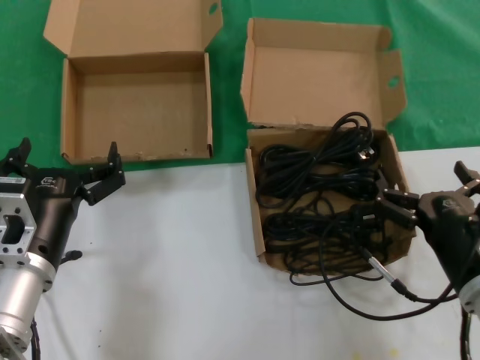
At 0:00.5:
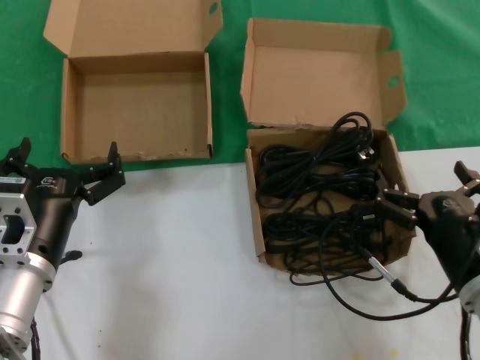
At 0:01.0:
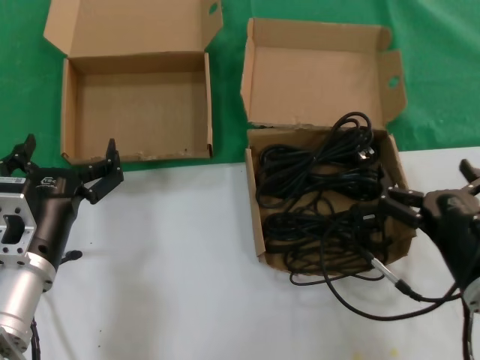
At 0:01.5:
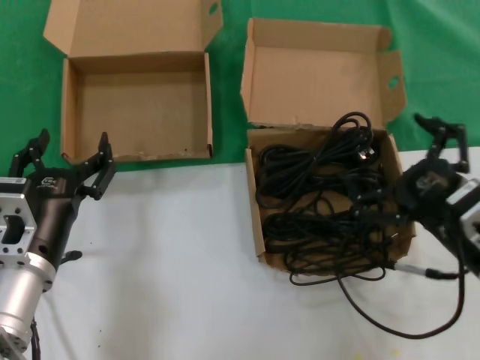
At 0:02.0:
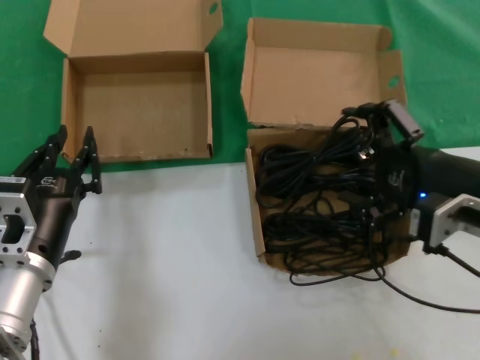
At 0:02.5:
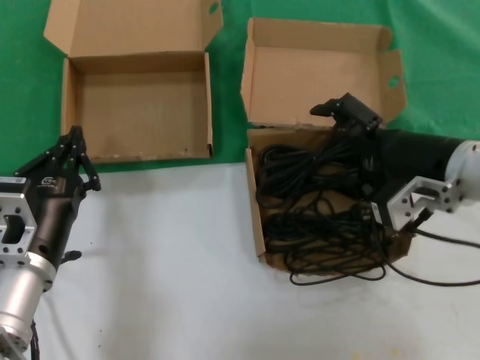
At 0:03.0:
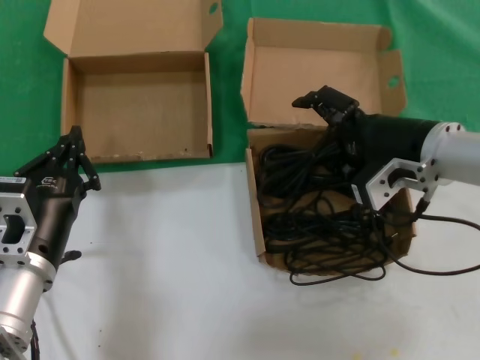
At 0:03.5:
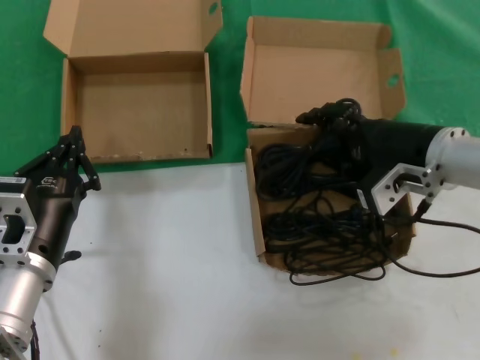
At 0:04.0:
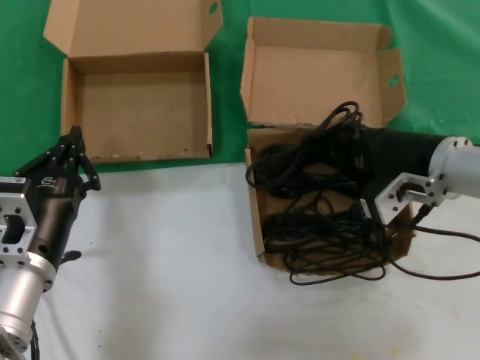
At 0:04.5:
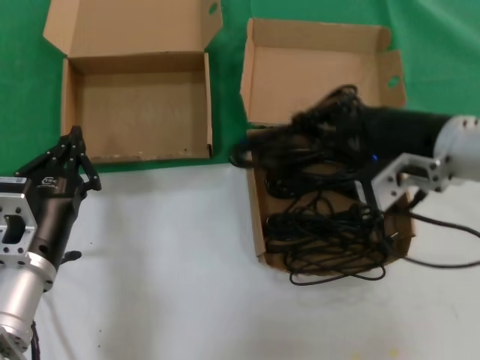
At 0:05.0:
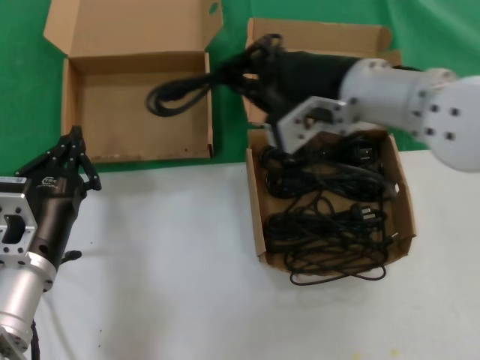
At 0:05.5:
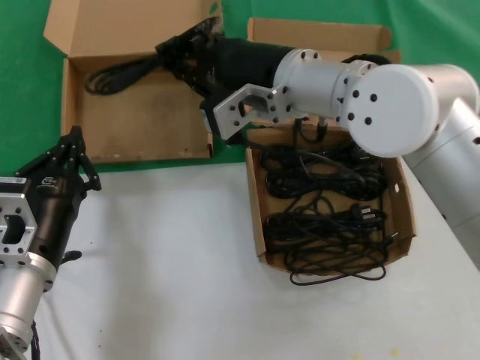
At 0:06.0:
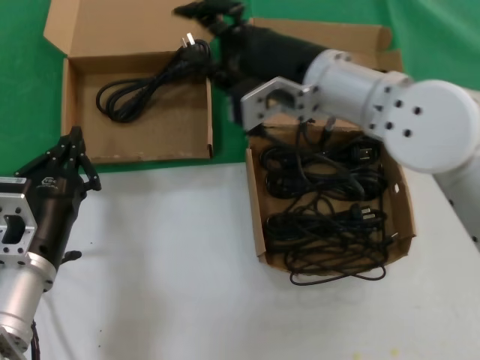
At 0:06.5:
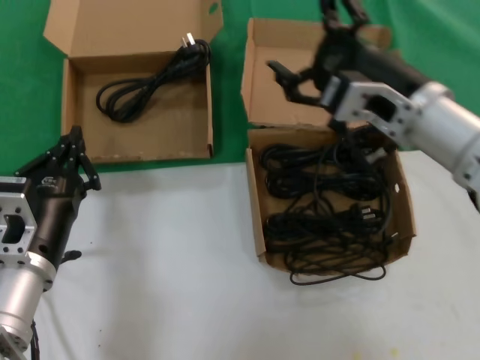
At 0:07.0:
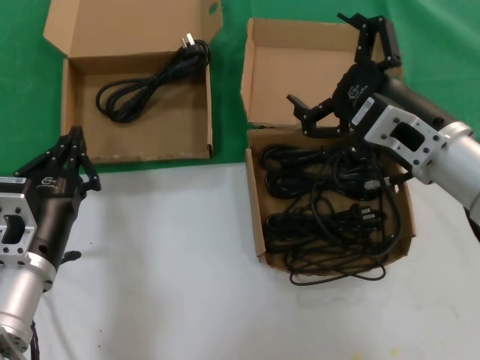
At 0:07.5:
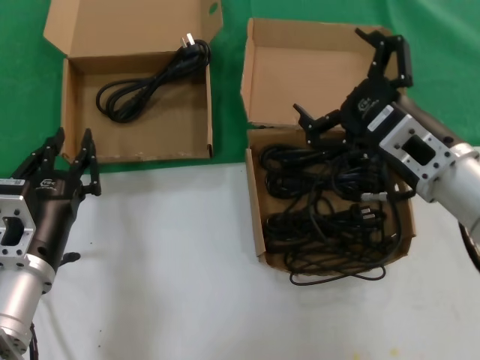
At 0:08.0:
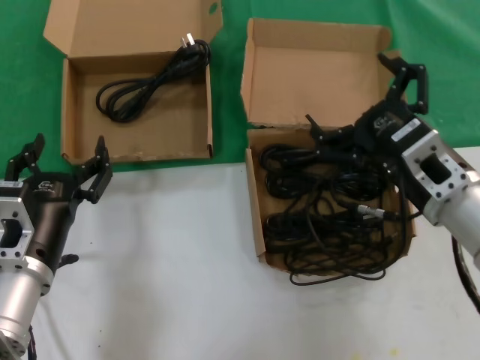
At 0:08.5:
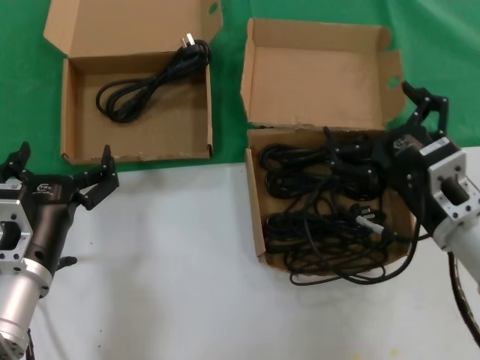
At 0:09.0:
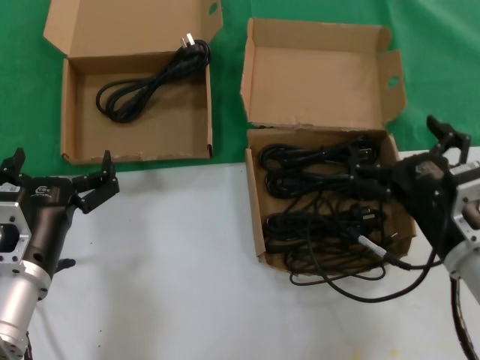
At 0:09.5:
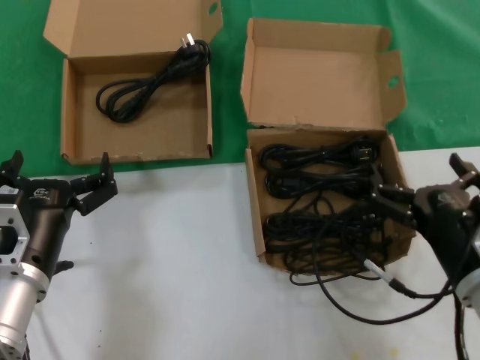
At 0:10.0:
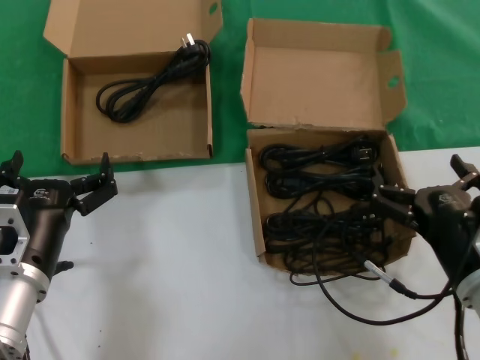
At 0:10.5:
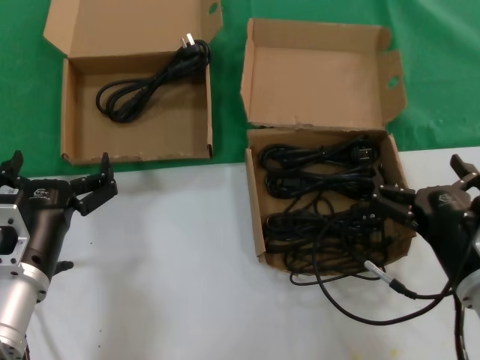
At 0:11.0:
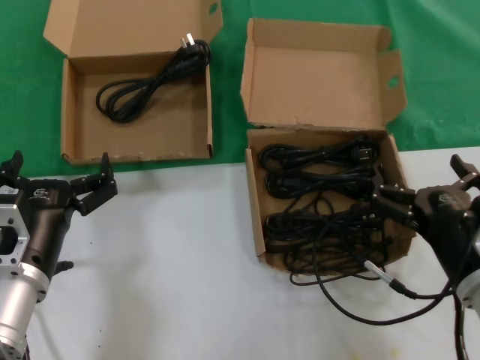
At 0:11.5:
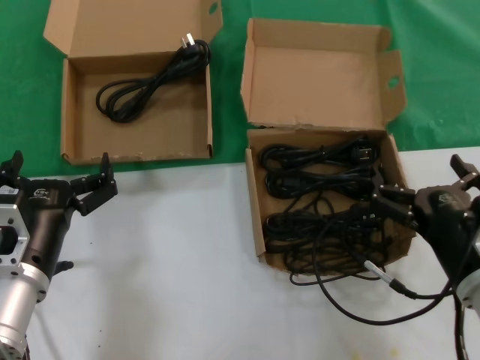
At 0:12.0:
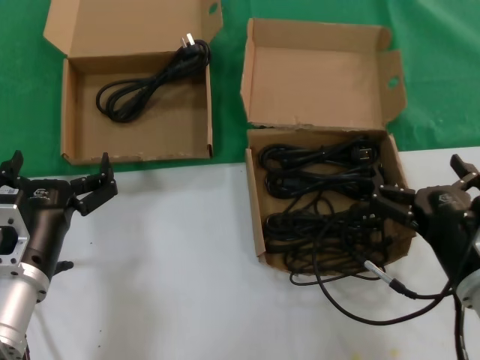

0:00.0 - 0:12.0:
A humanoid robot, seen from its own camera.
Task of the whole recording: take the parts from the box containing them and put them into an empty box.
Step, 0:00.0 - 0:04.0: Grasp the data cable.
Step, 0:04.5 - 0:05.5: Place the data cable in the another box.
0:00.0 - 0:02.0: The right hand heads upward, covering some 15 cm.
0:02.0 - 0:04.0: The right hand heads forward, covering approximately 10 cm.
0:04.0 - 0:06.0: The right hand heads to the left and upward, covering some 15 cm.
0:06.0 - 0:08.0: The right hand heads to the right, downward and backward, covering approximately 20 cm.
0:08.0 - 0:10.0: The right hand is displaced downward and backward by about 10 cm.
0:10.0 - 0:12.0: Both hands stay put.

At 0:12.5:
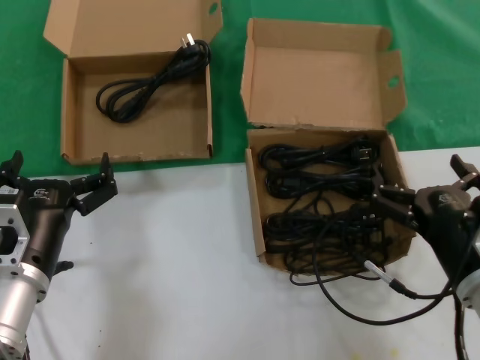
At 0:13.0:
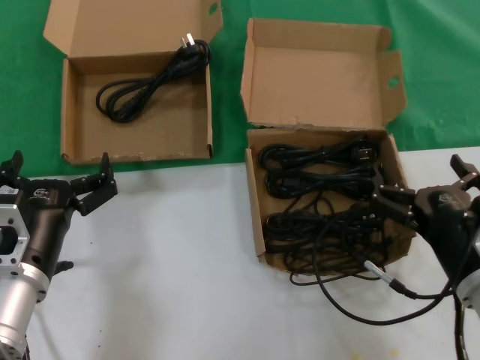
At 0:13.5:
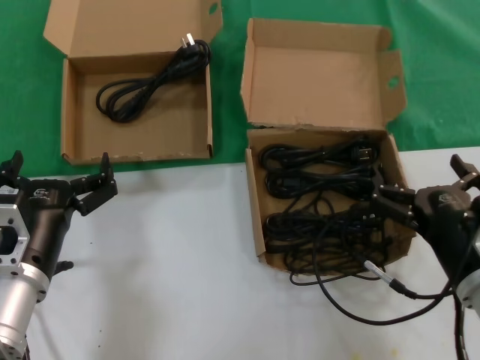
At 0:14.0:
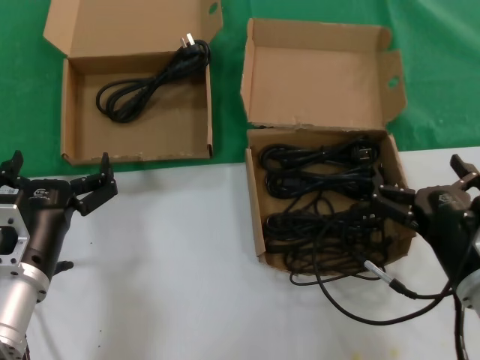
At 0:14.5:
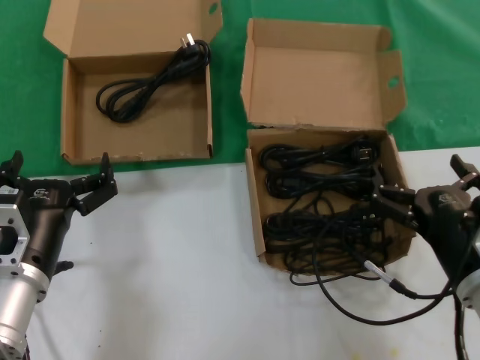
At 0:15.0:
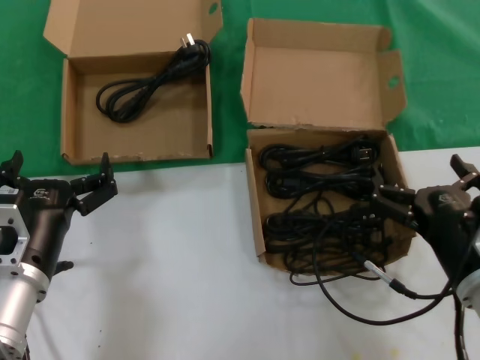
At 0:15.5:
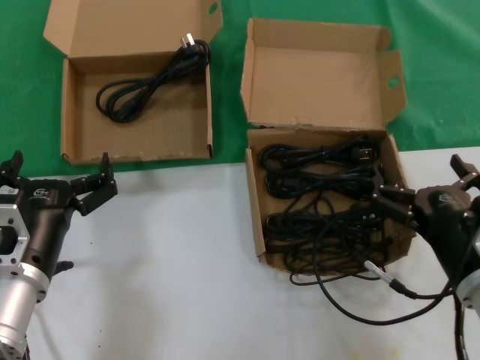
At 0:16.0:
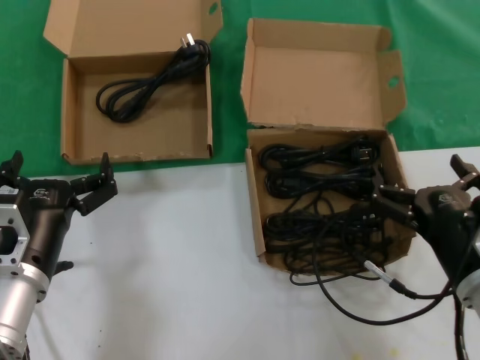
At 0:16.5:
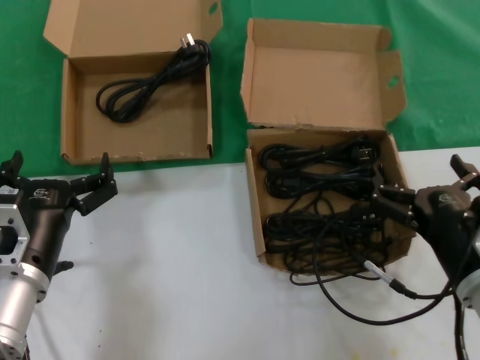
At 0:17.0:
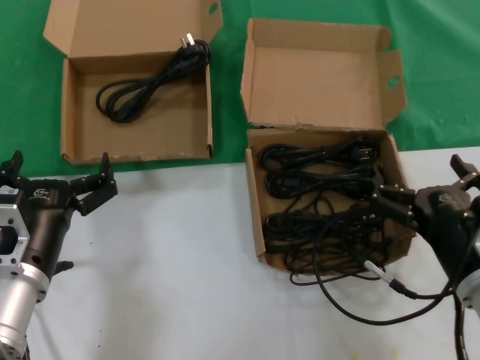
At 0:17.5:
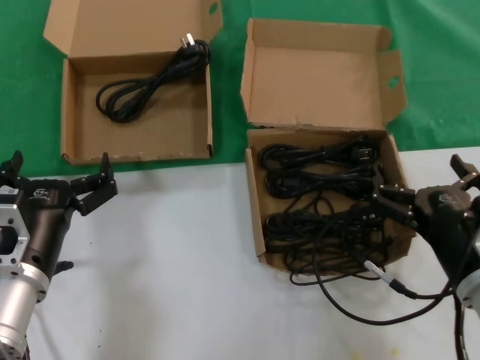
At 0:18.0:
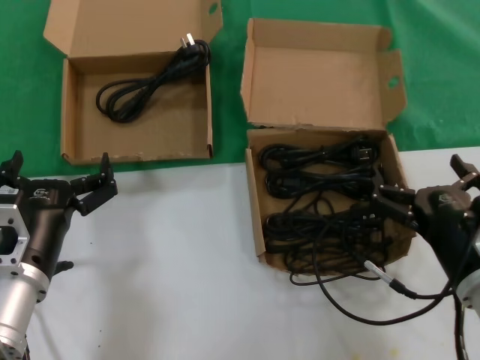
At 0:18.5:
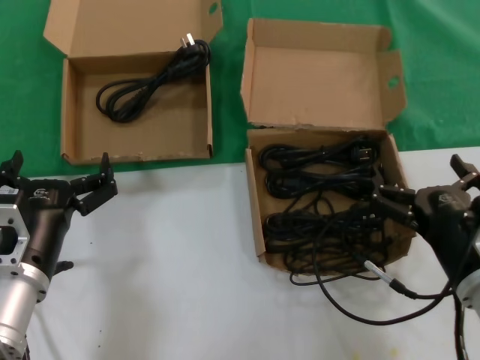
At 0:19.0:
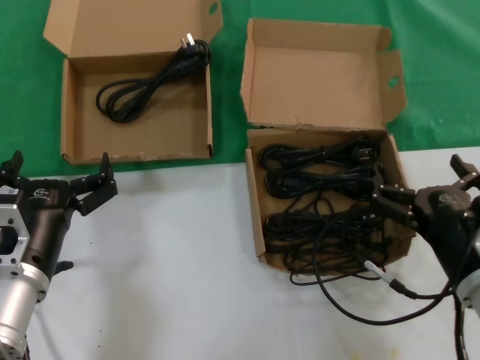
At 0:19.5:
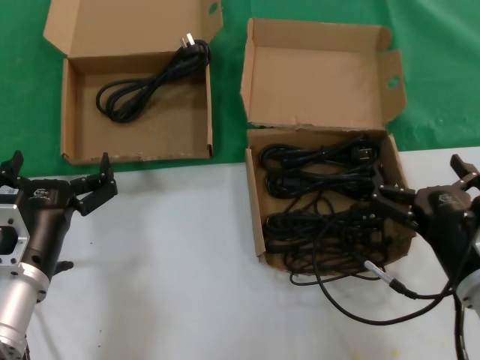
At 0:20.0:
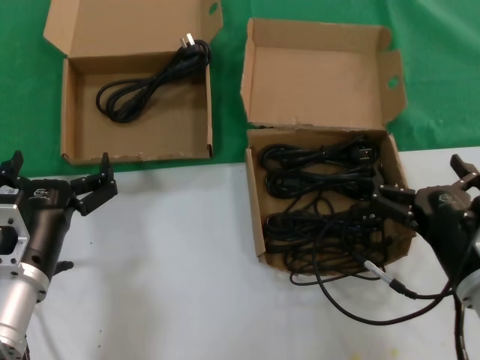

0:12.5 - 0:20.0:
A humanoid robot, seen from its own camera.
Task of the whole recording: take the parts from the box containing them and put them into an empty box.
0:12.5 - 0:20.0: Neither hand changes place.
